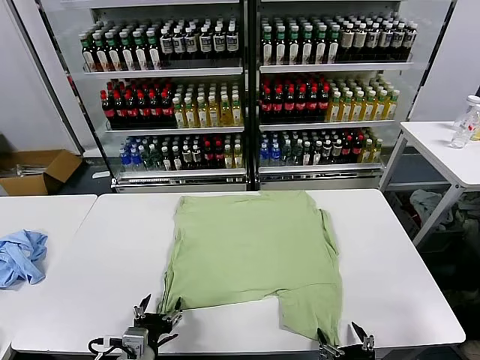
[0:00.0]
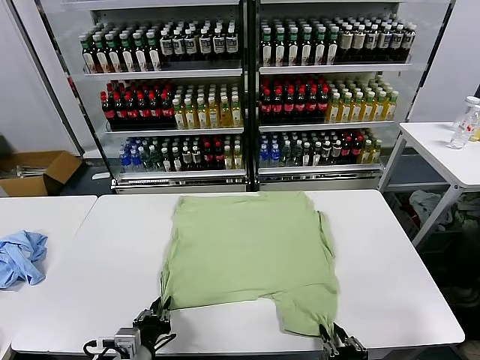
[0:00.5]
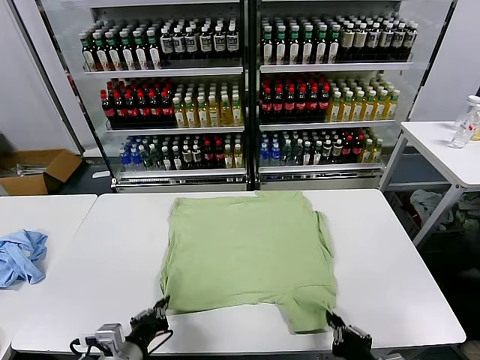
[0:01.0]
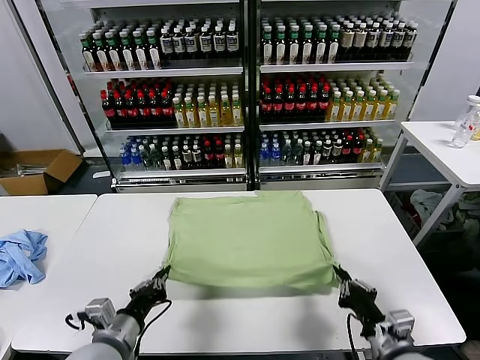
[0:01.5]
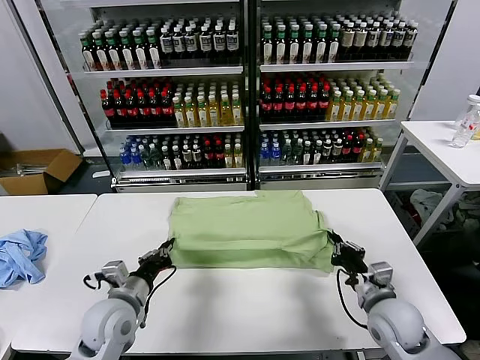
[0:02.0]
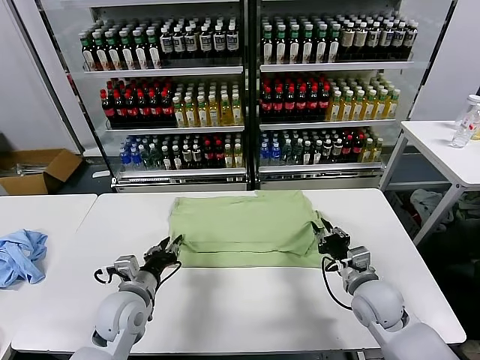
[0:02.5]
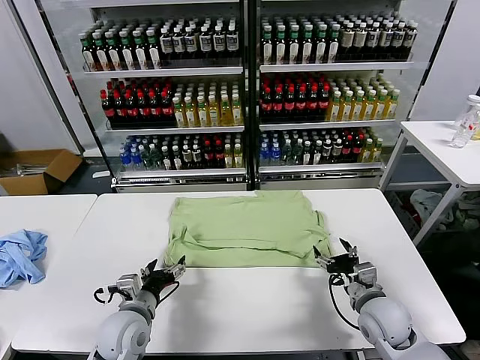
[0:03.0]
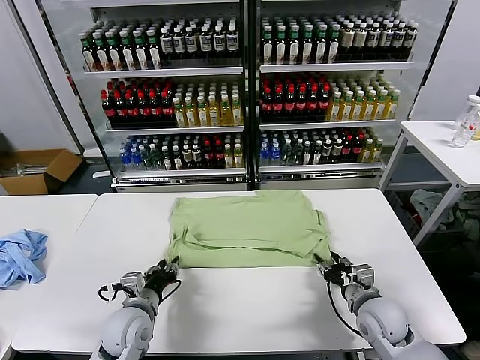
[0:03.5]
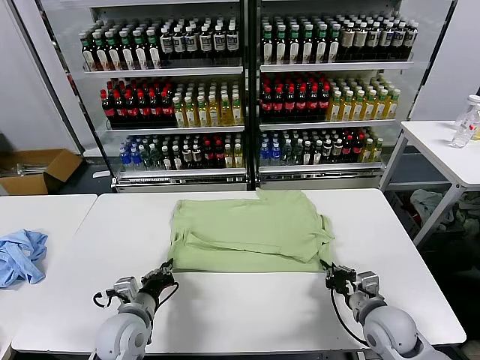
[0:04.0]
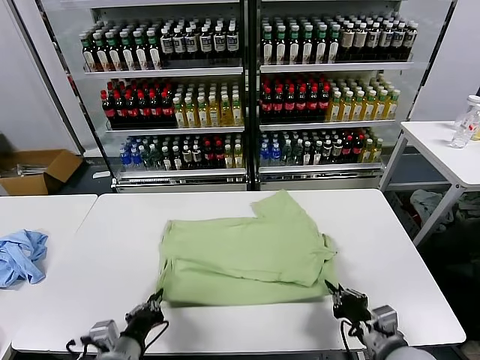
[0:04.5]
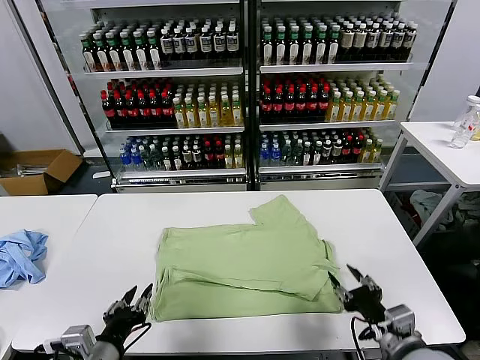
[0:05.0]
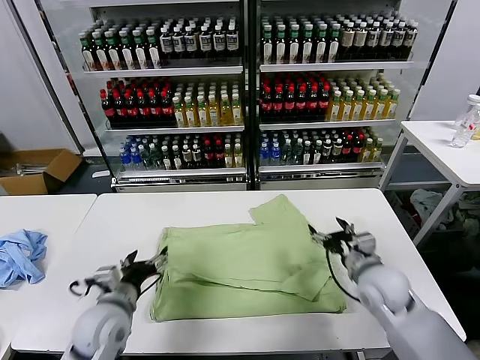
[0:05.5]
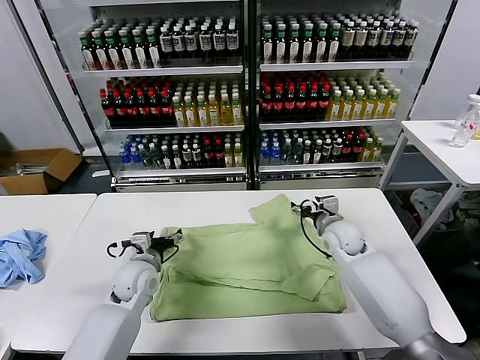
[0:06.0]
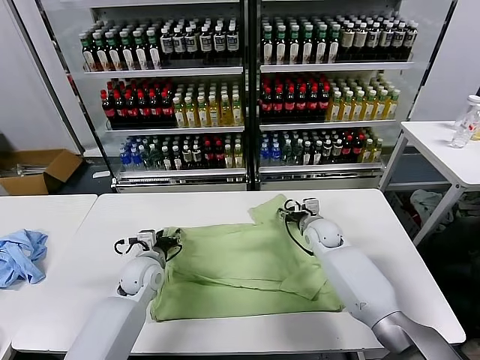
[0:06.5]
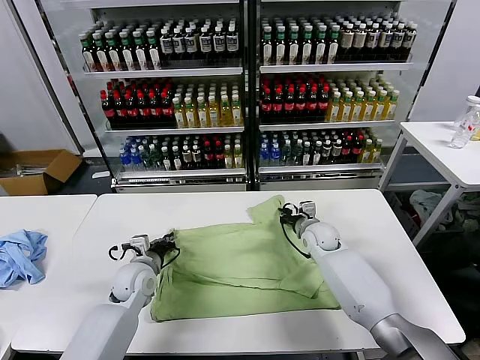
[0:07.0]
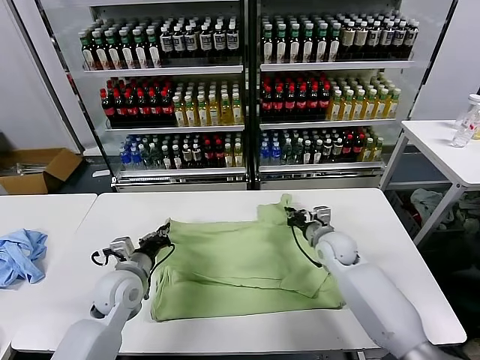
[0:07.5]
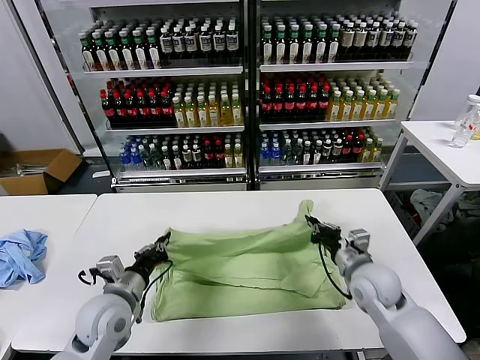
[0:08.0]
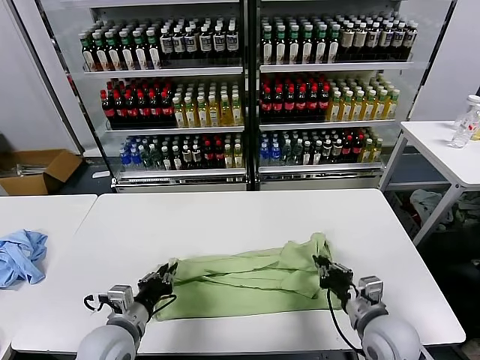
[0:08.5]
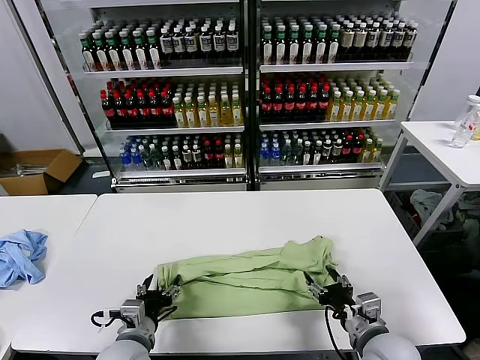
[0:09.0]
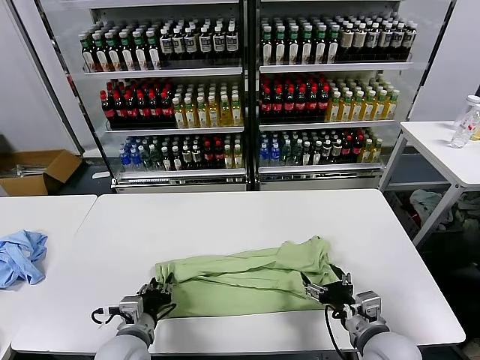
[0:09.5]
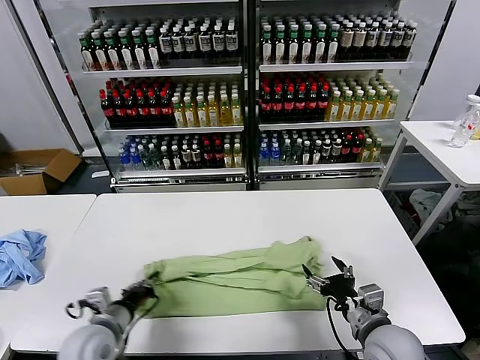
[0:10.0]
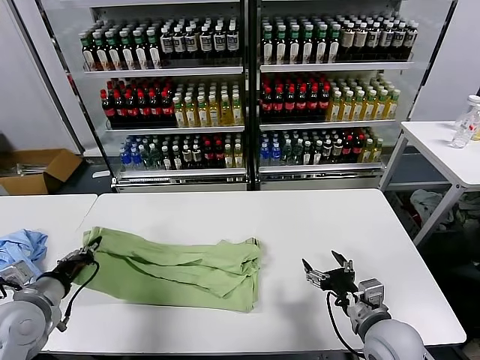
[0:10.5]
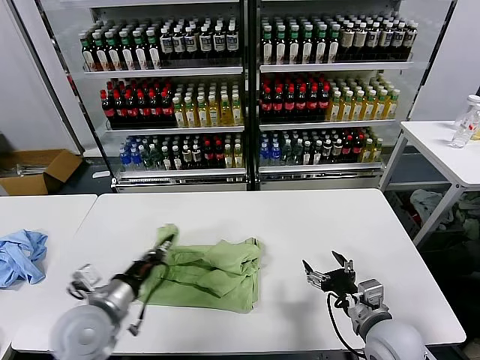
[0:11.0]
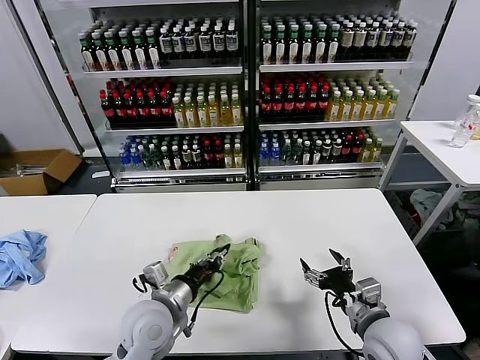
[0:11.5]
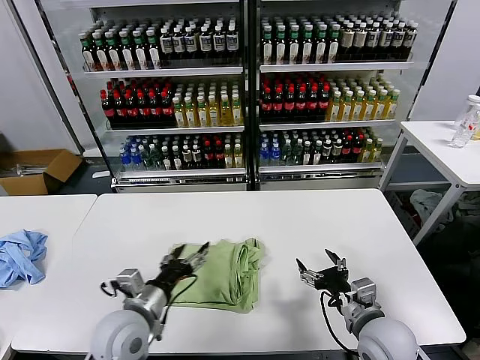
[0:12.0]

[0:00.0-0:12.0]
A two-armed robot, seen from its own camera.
Task of the whole recording: fold and organize the clothes.
Step, 0:00.0 to 0:00.5: use both grippers simultaneously to clamp the lower edge of the clothing fabric.
Step, 0:01.0 to 0:02.5: use both grippers to drag the lower edge of the fabric forward and fold it over the upper edge.
Step, 0:03.0 to 0:04.5: Drag the clothes downward with both gripper.
Step, 0:05.0 to 0:07.0: use both grippers simultaneously to clamp the upper edge of the clothing fabric.
Step, 0:07.5 to 0:08.5: use both grippers to drag the upper edge of the fabric backward and fold it over the lower edge.
Step, 0:09.0 to 0:09.5: use the left gripper to clamp the left edge of the fabric.
Step, 0:10.0 to 0:11.5: use the left gripper to drag the left edge of the fabric to the left and folds it over the right edge.
0:02.0 to 0:04.0: The left gripper moves roughly 5 cm, and opens and closes again. Meanwhile the right gripper goes approximately 5 cm backward, and opens and closes again.
0:04.0 to 0:06.0: The left gripper is displaced forward by some 10 cm, and opens. The right gripper goes about 25 cm forward, and opens.
0:06.0 to 0:08.0: The left gripper shifts about 10 cm backward, and closes. Meanwhile the right gripper shifts some 20 cm backward, and closes.
0:08.0 to 0:10.0: The right gripper goes some 10 cm backward, and opens up. Meanwhile the left gripper moves some 5 cm, and opens and closes again.
0:10.0 to 0:12.0: The left gripper goes approximately 10 cm to the right and upward, and opens up.

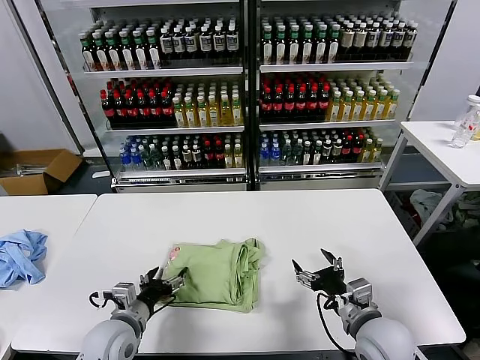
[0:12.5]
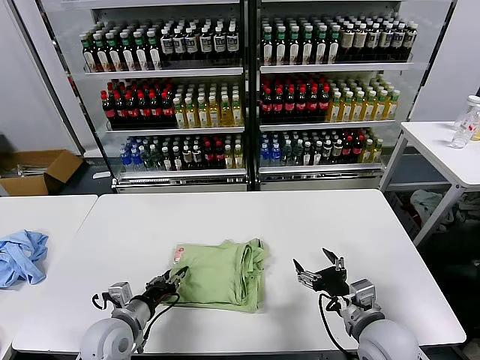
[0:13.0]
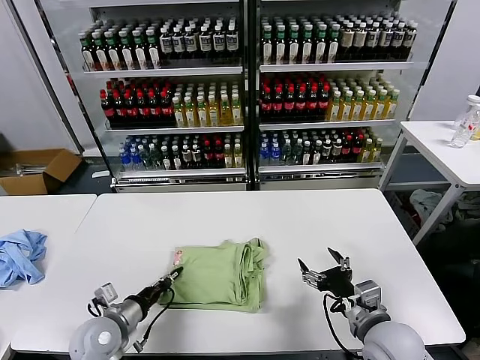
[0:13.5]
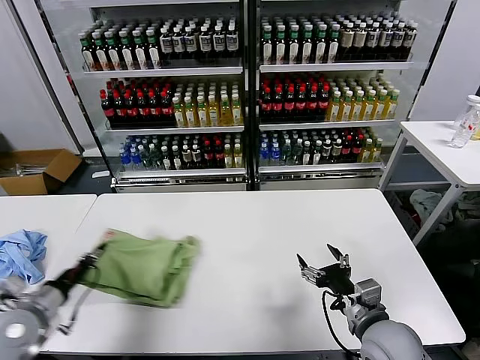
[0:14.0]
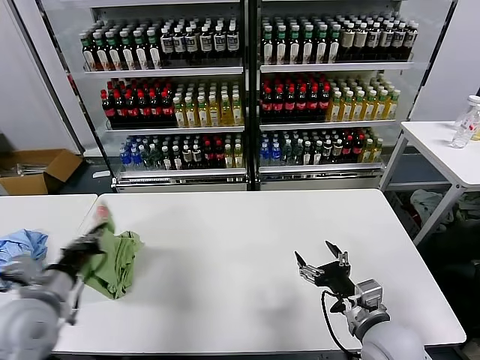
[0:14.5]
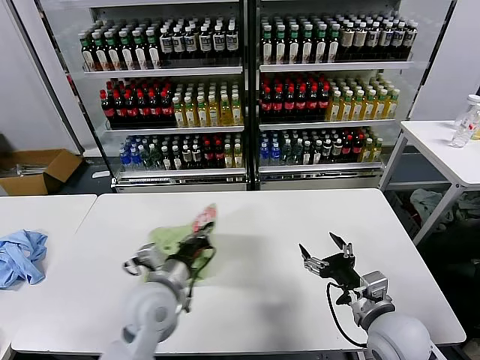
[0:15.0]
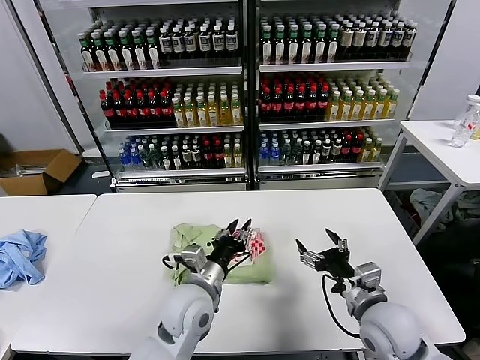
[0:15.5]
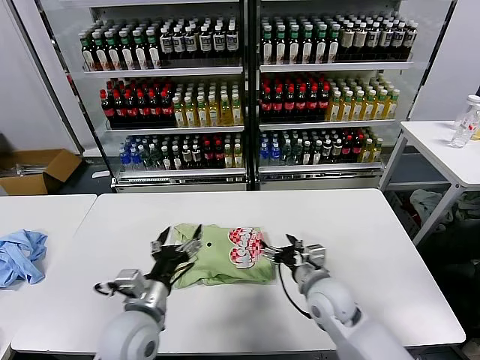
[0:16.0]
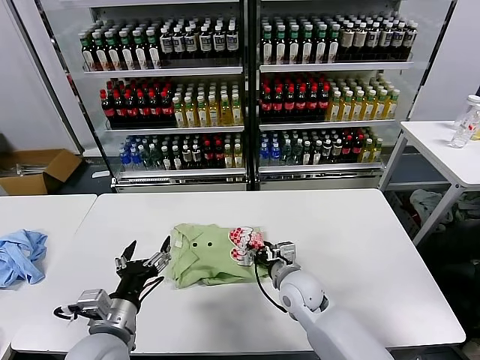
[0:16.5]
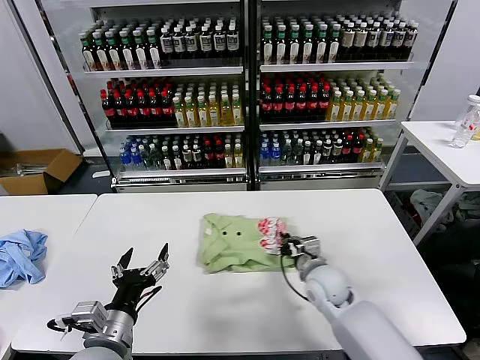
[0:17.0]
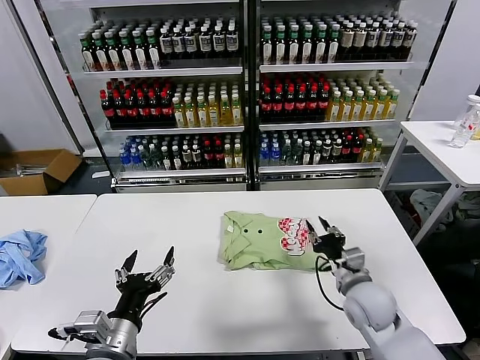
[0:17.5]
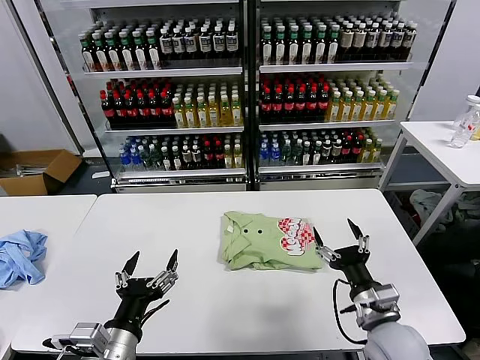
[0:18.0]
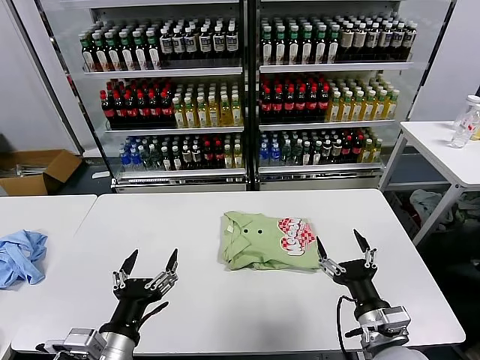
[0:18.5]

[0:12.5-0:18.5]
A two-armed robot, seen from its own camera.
Task of the whole recording: fold and organize the clothes.
Step, 0:12.5 to 0:15.5: Flip the folded clothes over with left gripper.
Step, 0:16.0 to 0:17.0: Drag the clothes to the center of the table.
0:12.5 to 0:14.5: The left gripper moves upward and to the left, some 15 cm, and closes.
0:14.5 to 0:16.5: The left gripper moves to the right, some 15 cm, and opens its fingers. The right gripper moves forward, to the left and downward, some 20 cm.
0:16.5 to 0:18.5: The right gripper goes about 20 cm backward and to the right, and closes, then reopens. The left gripper is displaced backward by about 5 cm.
